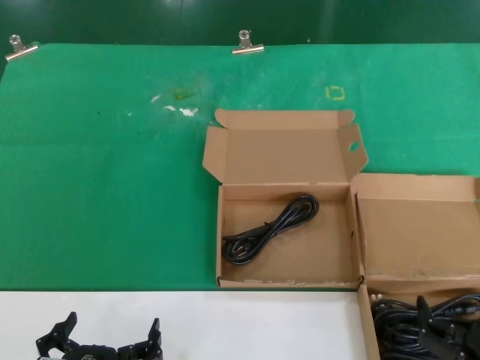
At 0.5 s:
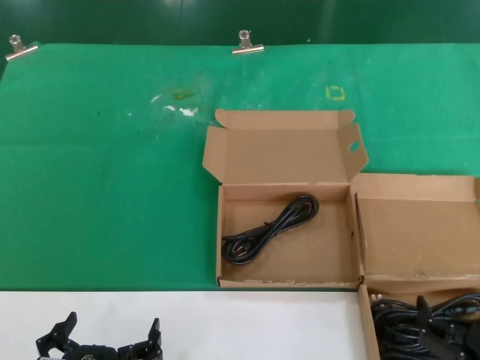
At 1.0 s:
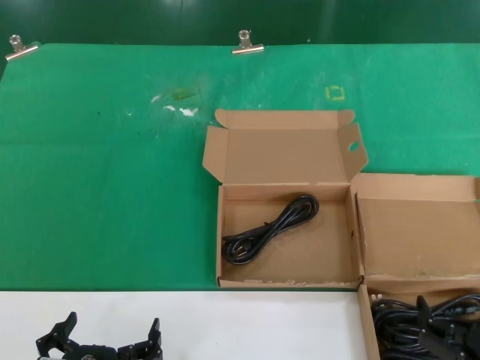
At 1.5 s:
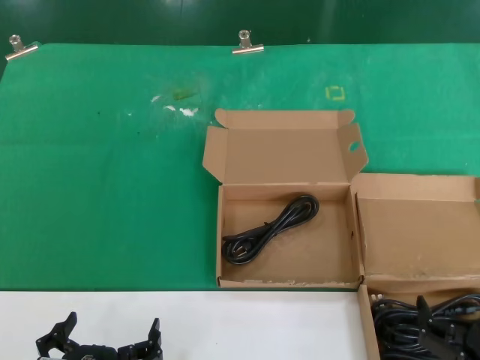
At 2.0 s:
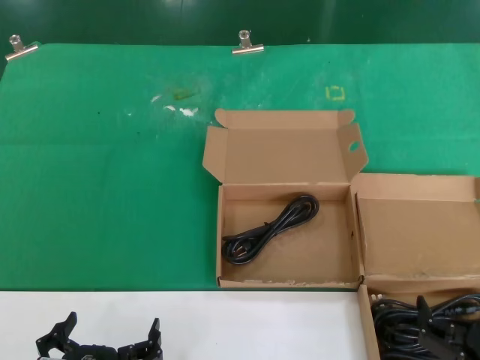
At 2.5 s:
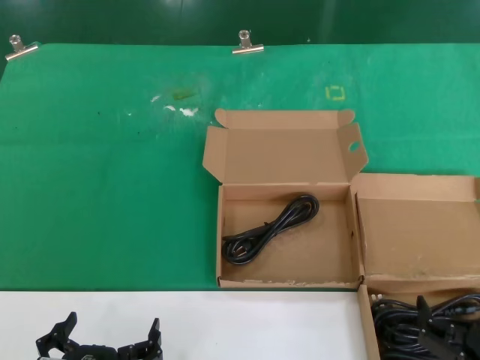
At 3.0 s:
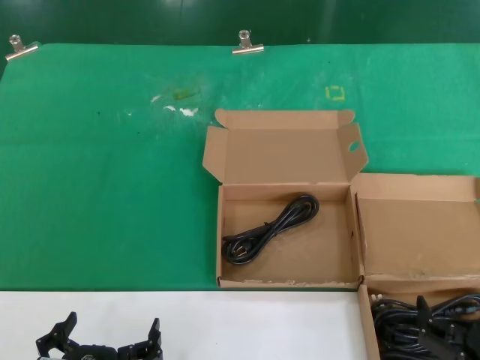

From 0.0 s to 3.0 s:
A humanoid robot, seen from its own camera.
Task of the whole recording: take the parts from the box containing them and put them into an empty box.
From 0.0 s to 3.0 s: The two hands keep their place.
